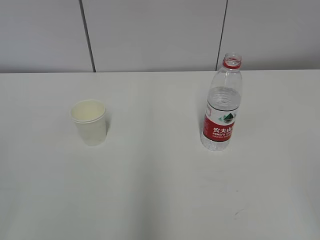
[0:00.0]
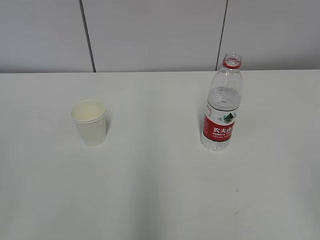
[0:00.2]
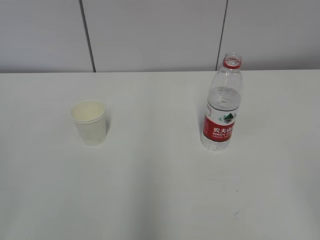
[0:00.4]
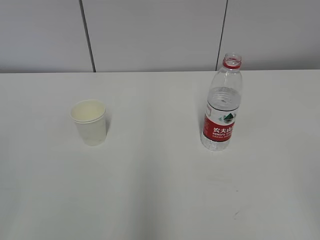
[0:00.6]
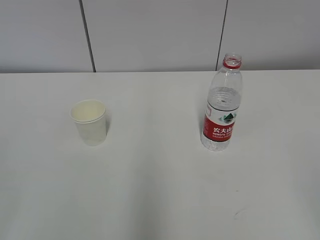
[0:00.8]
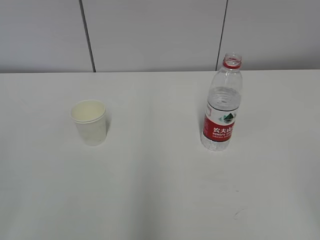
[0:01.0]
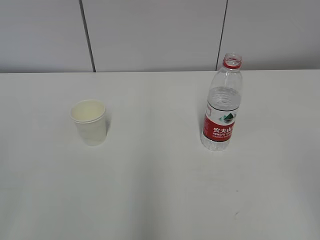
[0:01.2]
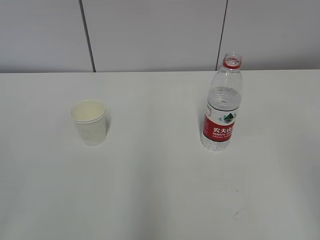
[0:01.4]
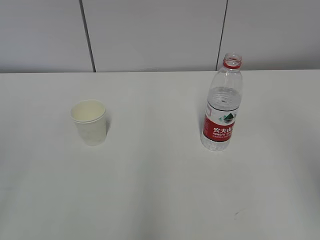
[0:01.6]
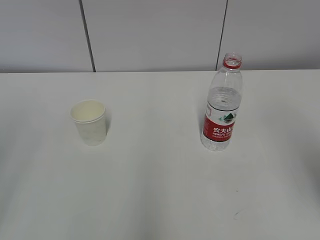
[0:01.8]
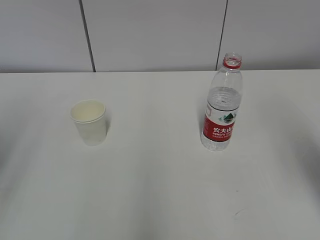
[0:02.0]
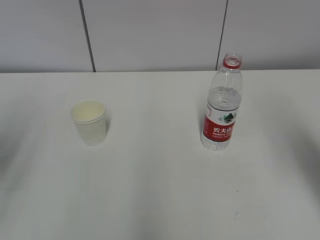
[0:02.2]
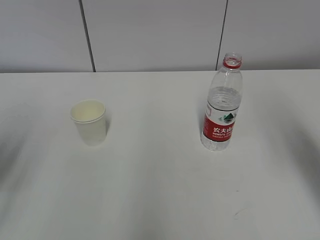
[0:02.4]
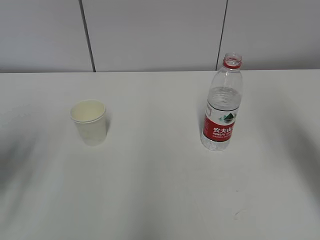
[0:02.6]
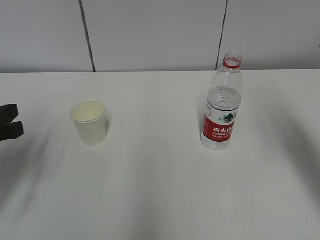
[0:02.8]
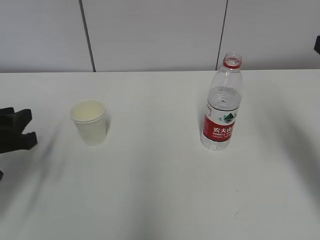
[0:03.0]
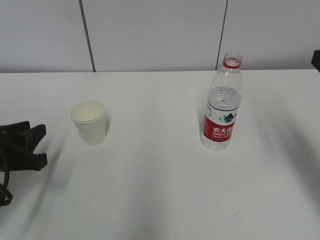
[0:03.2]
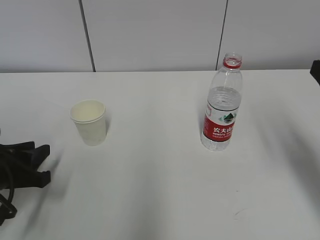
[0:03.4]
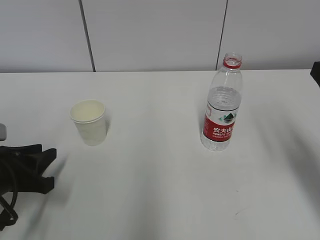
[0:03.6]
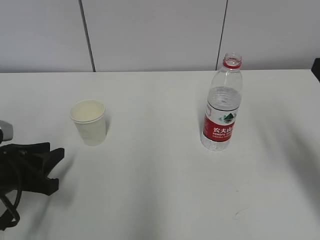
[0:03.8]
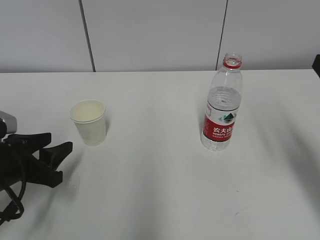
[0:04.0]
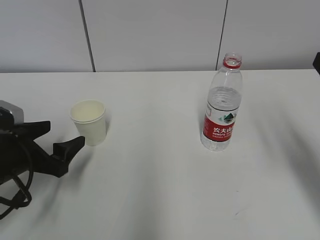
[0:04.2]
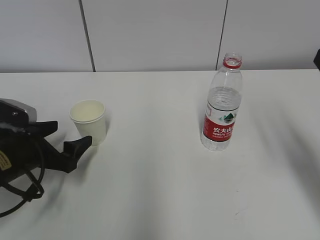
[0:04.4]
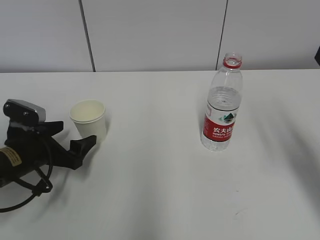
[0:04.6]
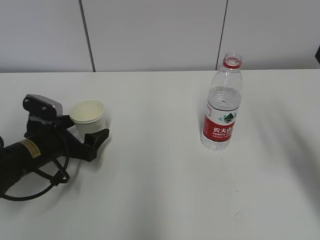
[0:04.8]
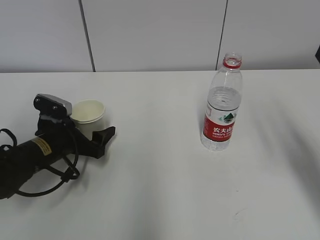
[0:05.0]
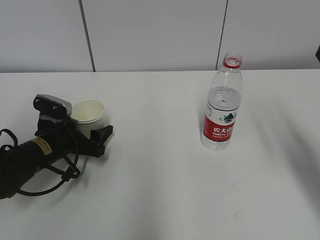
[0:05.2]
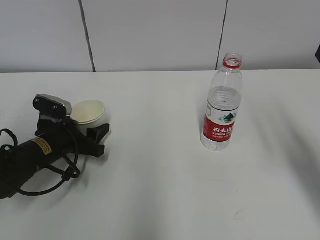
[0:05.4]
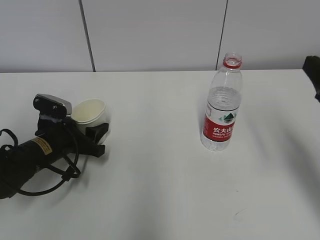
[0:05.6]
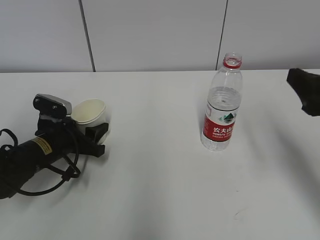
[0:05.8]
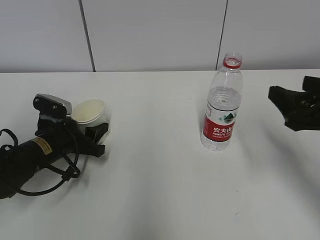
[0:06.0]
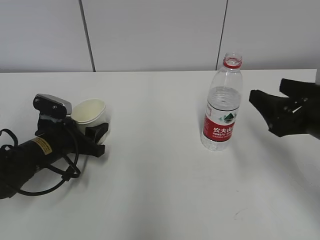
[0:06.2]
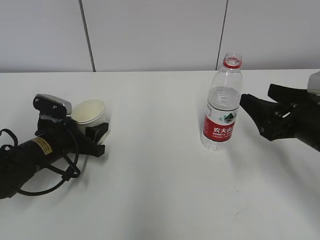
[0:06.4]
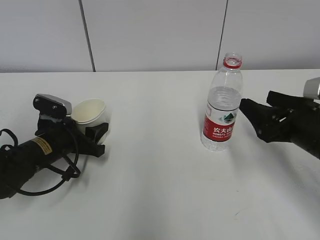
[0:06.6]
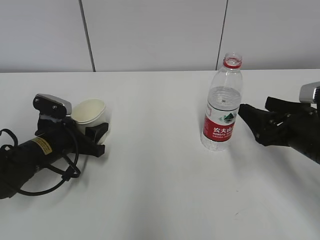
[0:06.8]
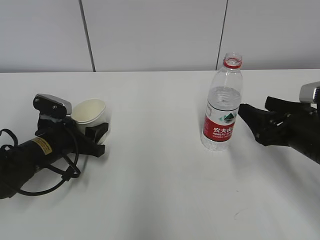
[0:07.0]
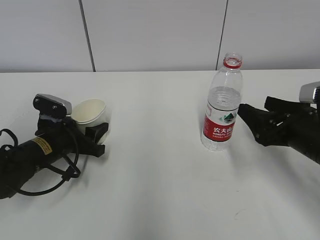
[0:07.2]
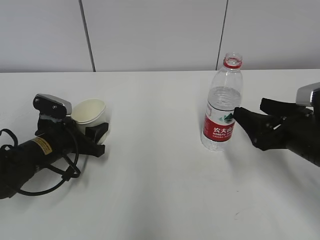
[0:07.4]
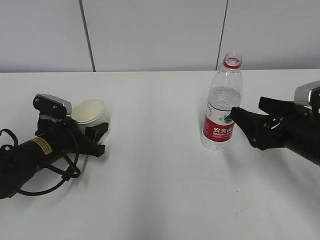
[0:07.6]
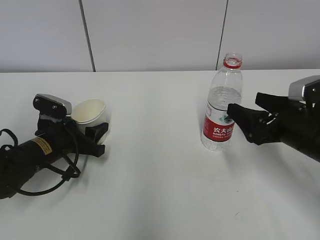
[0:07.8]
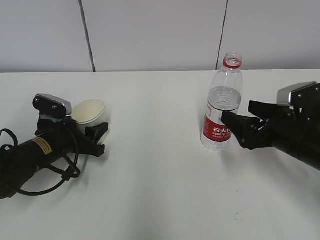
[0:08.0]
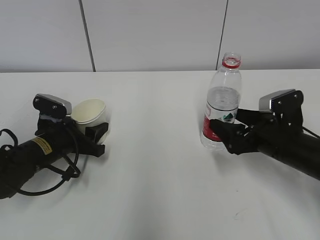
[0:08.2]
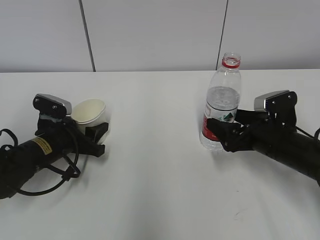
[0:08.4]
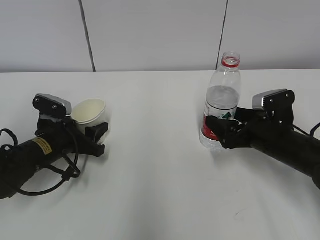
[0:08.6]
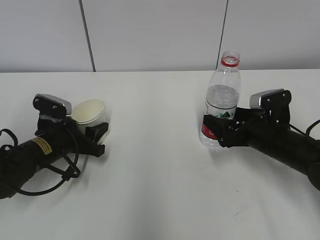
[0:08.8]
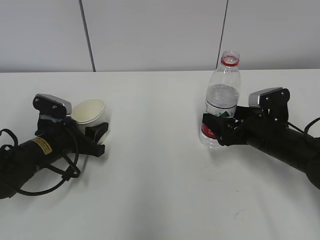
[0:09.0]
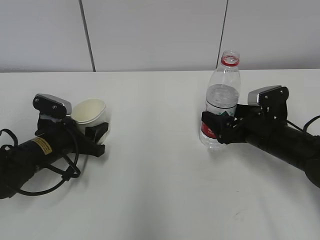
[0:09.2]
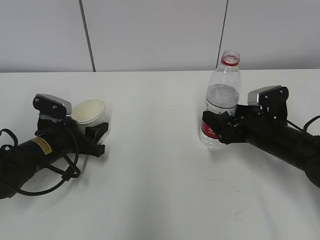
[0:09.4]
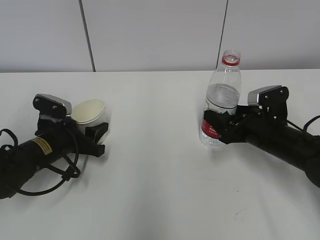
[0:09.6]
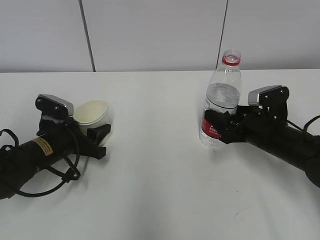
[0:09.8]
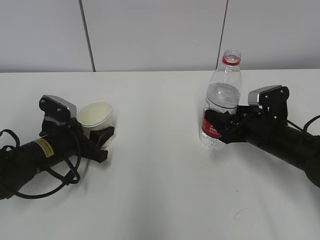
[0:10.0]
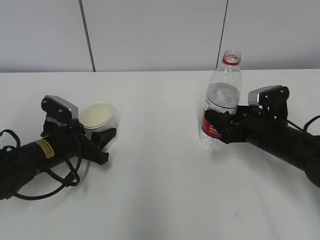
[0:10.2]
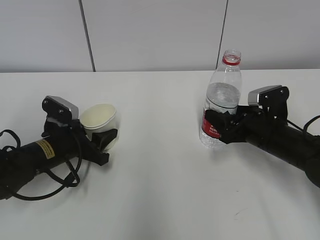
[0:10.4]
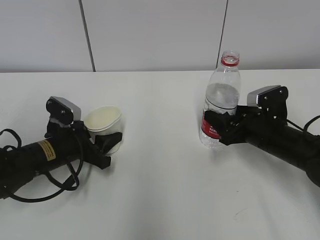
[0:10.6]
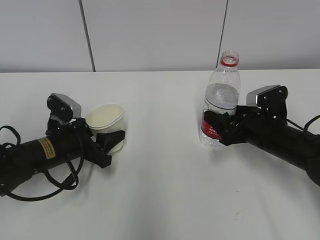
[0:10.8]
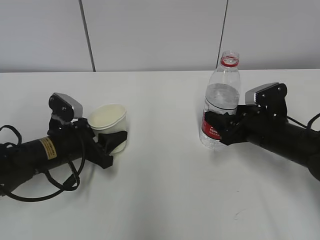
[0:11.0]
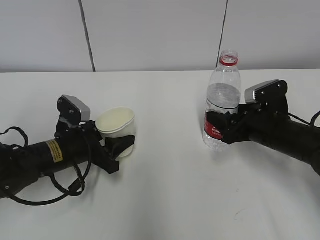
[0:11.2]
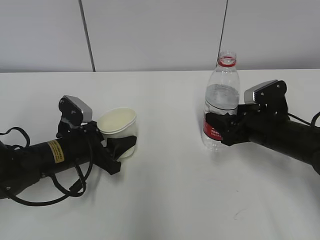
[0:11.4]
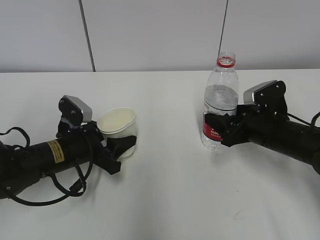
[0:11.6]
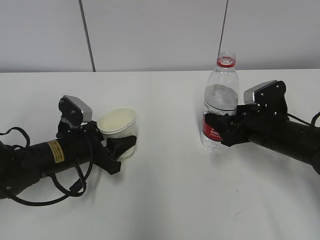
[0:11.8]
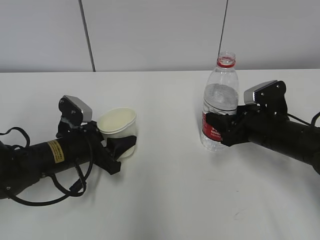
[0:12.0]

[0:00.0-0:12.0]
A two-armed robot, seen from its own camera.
Step, 0:00.0 to 0:08.2: Grab the paper cup with the left hand.
Step, 0:08.4 to 0:10.0: Grab the water bottle with the right hand.
0:01.6 to 0:03.0: The right gripper heads forward, covering some 15 cm. The left gripper shifts approximately 25 cm forward and downward.
0:03.0 to 0:04.4: The left gripper is displaced downward by some 5 cm, and opens.
0:04.4 to 0:06.0: The left gripper shifts approximately 5 cm forward, and closes up; the right gripper shifts by some 5 cm.
0:06.0 to 0:07.6: The right gripper moves downward, approximately 5 cm.
0:07.6 to 0:09.0: The right gripper travels forward and downward by roughly 10 cm.
0:09.0 to 0:10.4: The right gripper closes its fingers.
0:10.4 to 0:12.0: There are only small adjustments of the grippers.

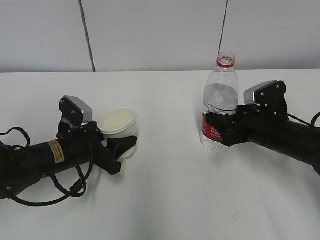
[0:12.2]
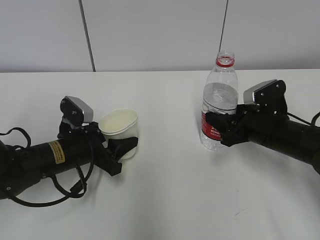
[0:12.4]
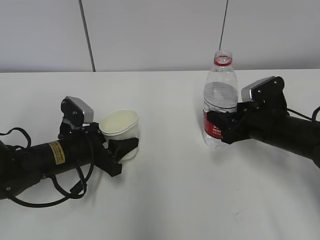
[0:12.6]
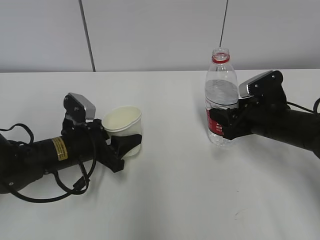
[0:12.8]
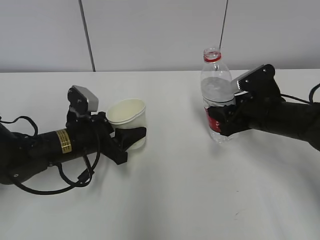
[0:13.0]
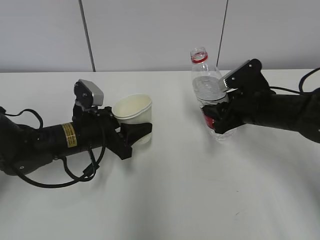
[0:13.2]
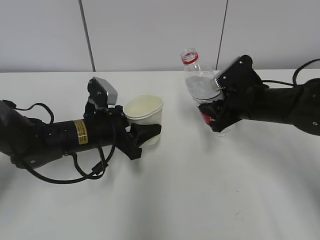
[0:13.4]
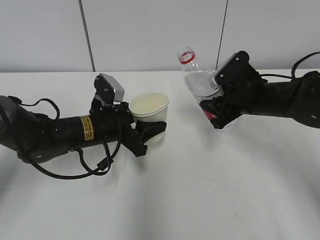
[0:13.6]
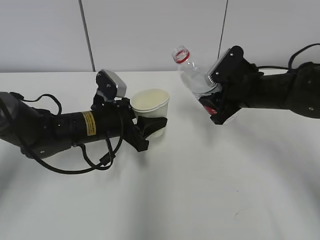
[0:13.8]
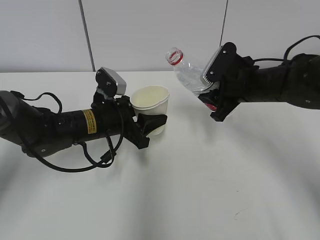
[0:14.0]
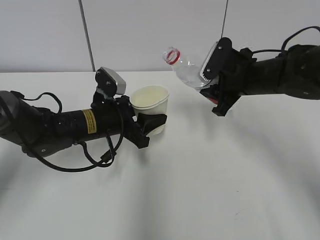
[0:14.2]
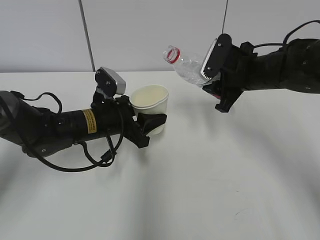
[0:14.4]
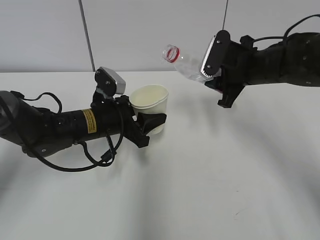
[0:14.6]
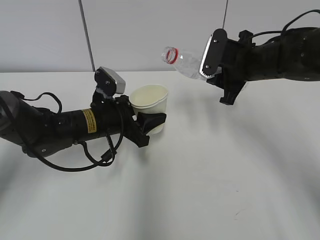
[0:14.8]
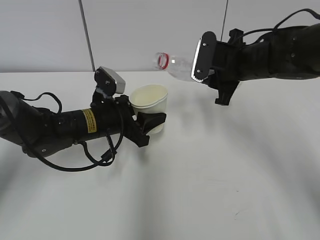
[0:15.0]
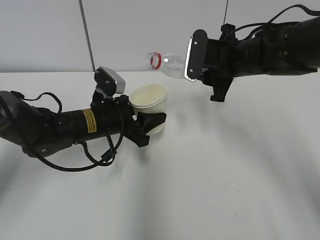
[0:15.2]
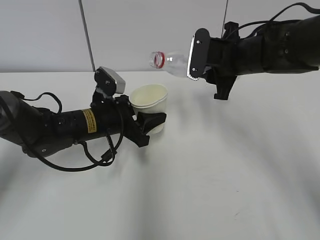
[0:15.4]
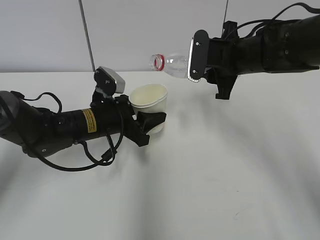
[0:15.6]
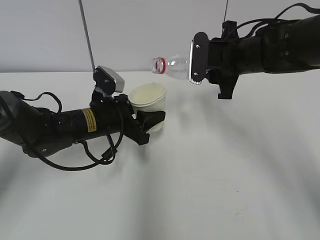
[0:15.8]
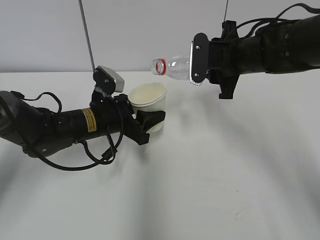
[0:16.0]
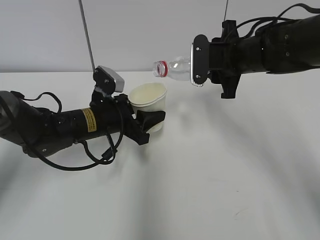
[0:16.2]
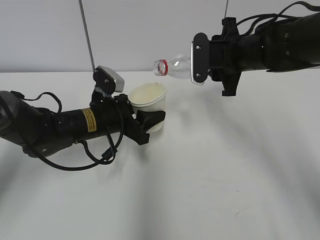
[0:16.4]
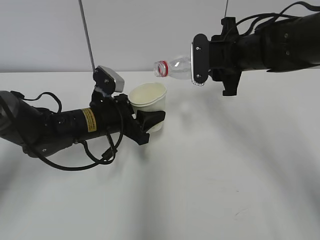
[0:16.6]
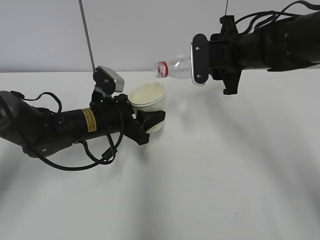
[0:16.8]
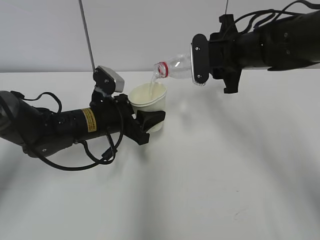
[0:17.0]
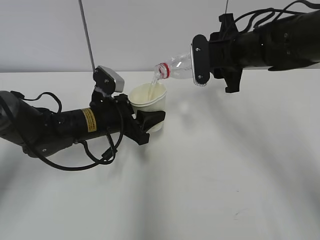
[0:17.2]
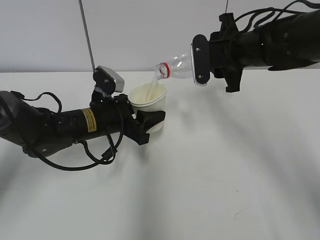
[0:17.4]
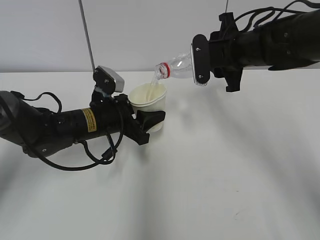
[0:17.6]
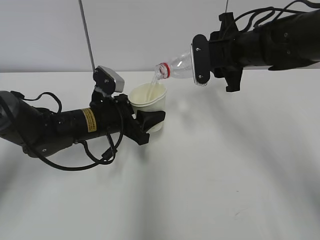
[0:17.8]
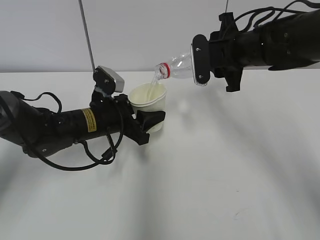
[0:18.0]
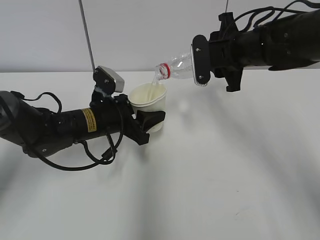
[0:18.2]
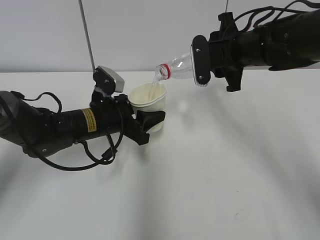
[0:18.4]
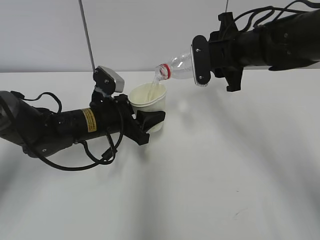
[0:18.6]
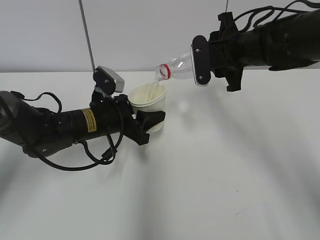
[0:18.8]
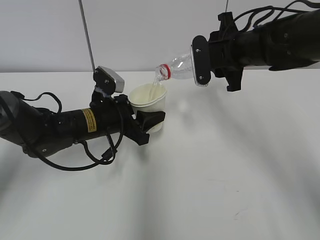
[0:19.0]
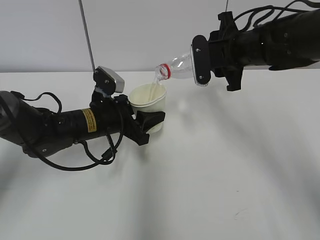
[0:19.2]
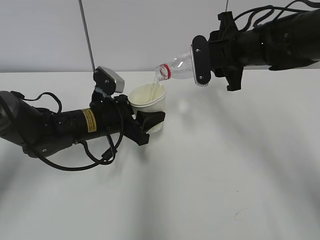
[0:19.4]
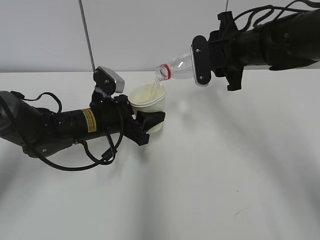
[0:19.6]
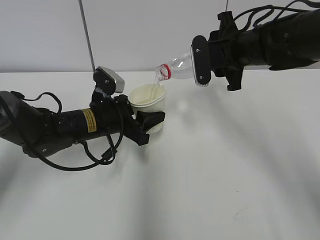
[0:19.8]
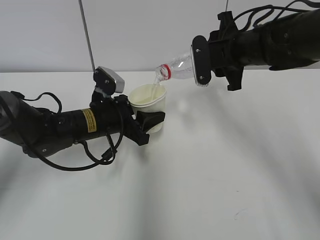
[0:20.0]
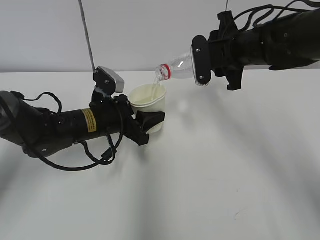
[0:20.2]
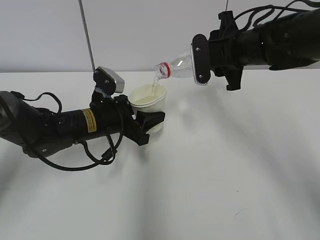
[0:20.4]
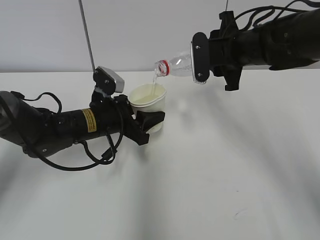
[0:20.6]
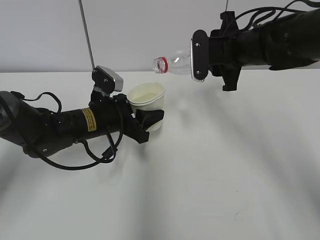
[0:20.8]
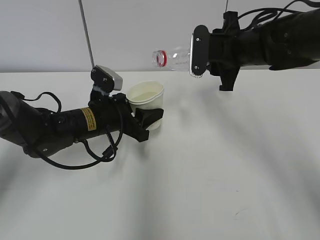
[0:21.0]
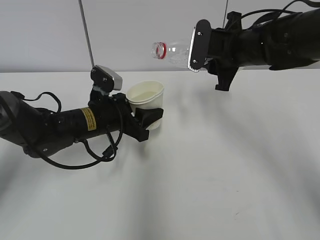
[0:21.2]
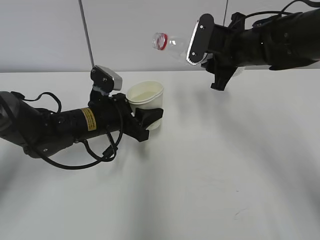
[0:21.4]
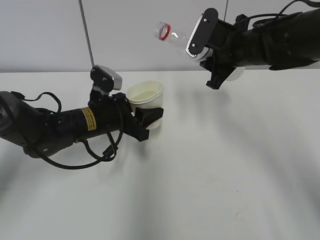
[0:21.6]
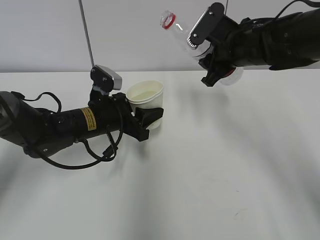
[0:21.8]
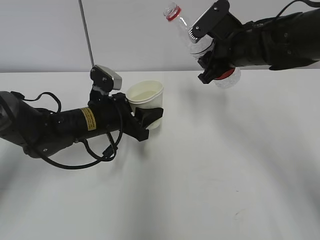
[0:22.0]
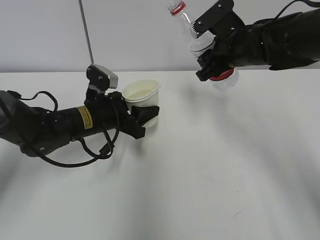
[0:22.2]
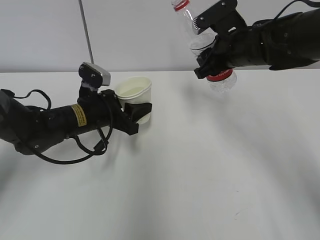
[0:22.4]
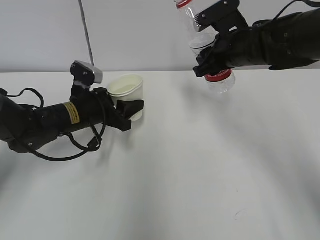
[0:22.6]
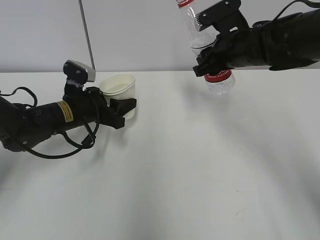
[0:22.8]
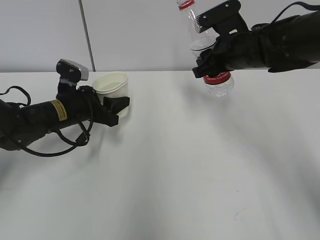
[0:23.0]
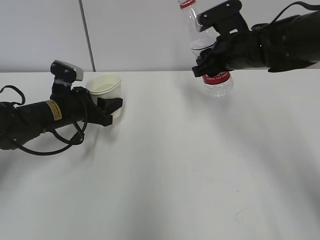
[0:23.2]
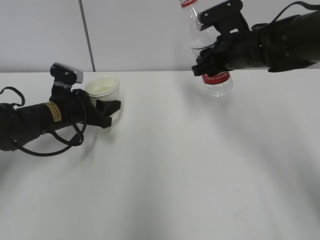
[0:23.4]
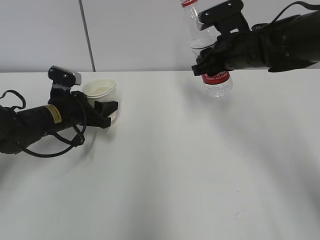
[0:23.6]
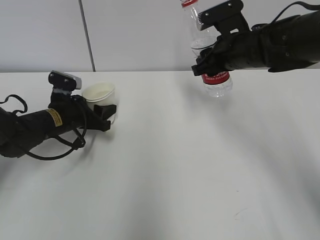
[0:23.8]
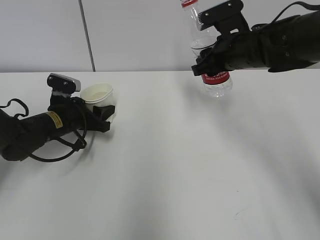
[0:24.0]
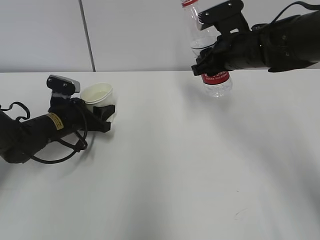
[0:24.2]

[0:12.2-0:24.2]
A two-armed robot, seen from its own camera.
Step, 0:14.0 to 0:17.2: Pour water with the right hand.
Step, 0:19.0 to 0:20.8: Place the paper cup with the left hand.
0:12.2 to 0:13.8: The left gripper moves to the right, roughly 5 cm. Meanwhile the right gripper shifts about 10 cm upward and forward.
0:13.8 to 0:15.2: The right gripper moves upward, some 5 cm.
0:15.2 to 0:16.6: The grippers stay close to where they were, moving slightly.
0:16.6 to 0:18.2: The grippers move only a little.
0:18.2 to 0:19.8: Both grippers stay about where they are.
0:19.8 to 0:21.2: The grippers make only small movements.
0:22.6 to 0:24.2: The left gripper heads to the left, covering some 5 cm.
